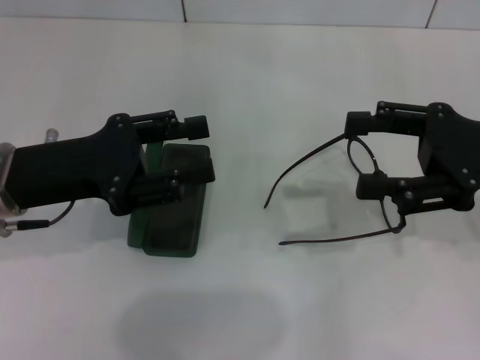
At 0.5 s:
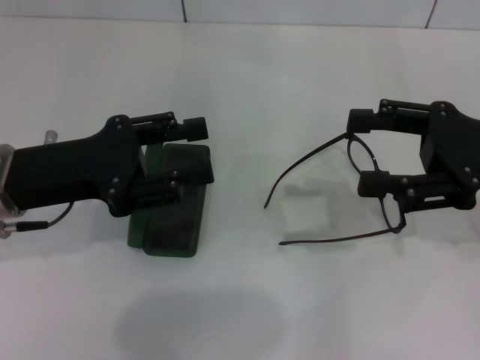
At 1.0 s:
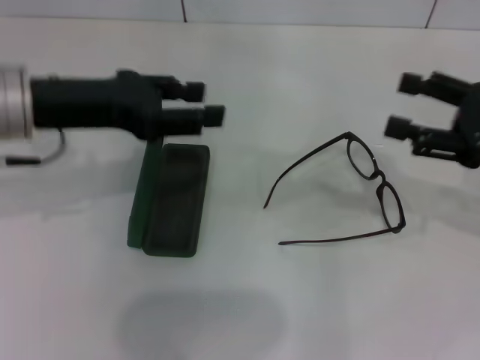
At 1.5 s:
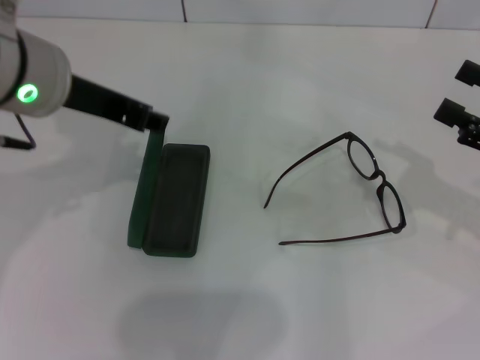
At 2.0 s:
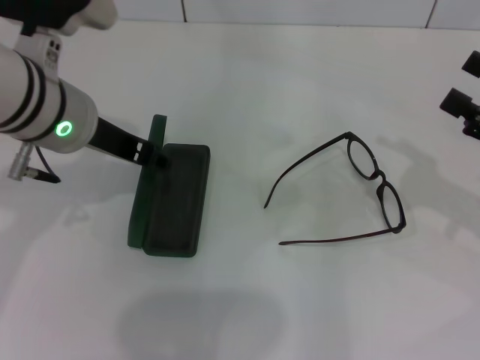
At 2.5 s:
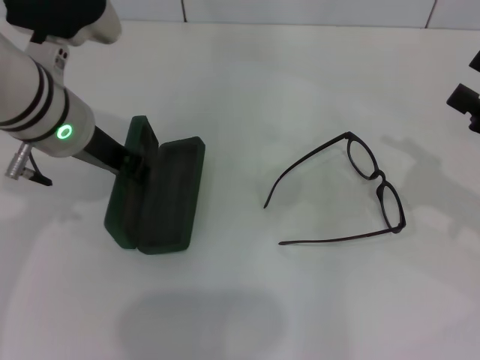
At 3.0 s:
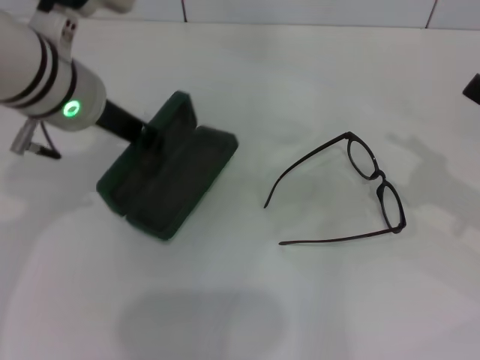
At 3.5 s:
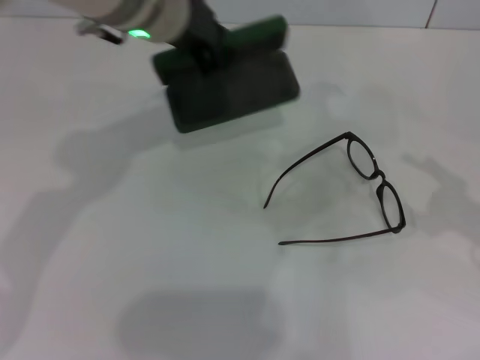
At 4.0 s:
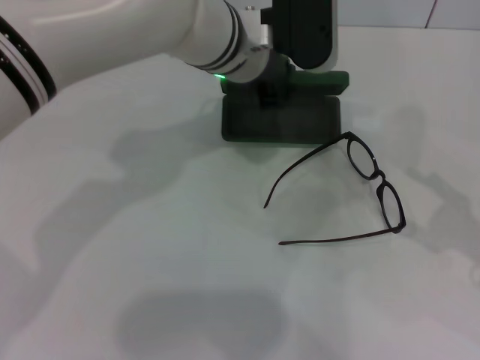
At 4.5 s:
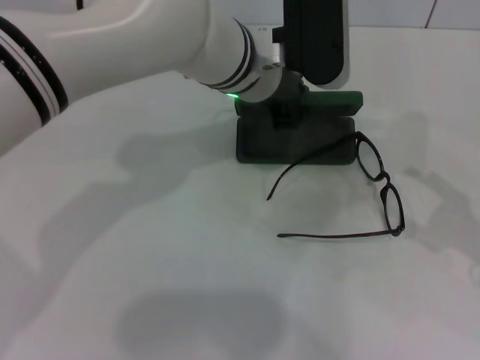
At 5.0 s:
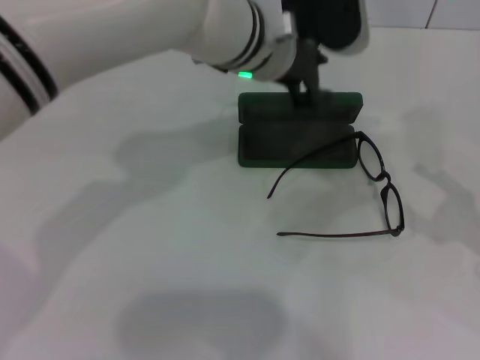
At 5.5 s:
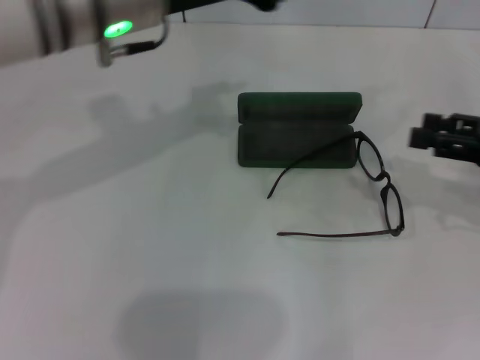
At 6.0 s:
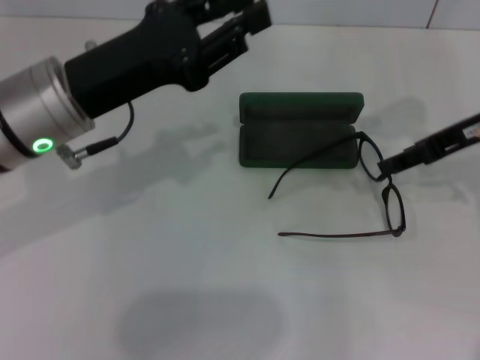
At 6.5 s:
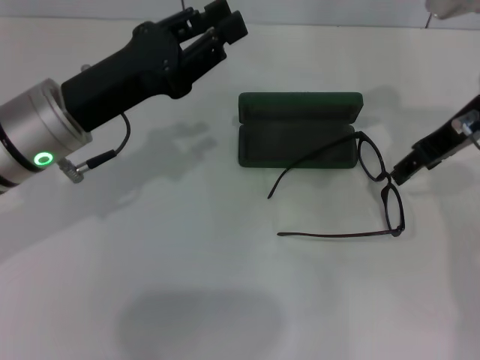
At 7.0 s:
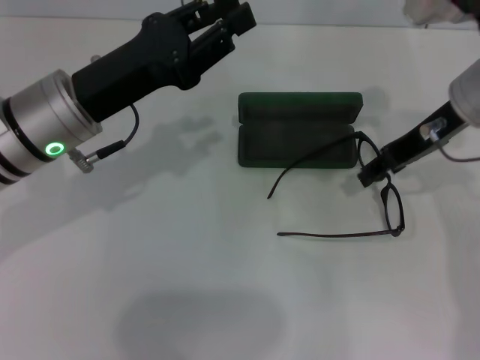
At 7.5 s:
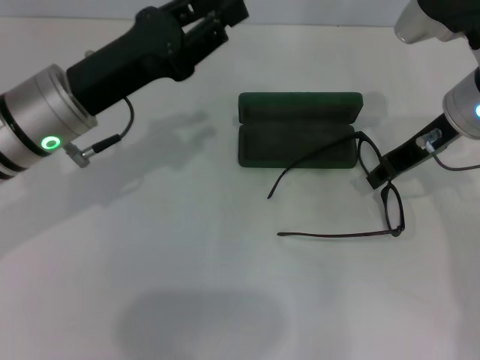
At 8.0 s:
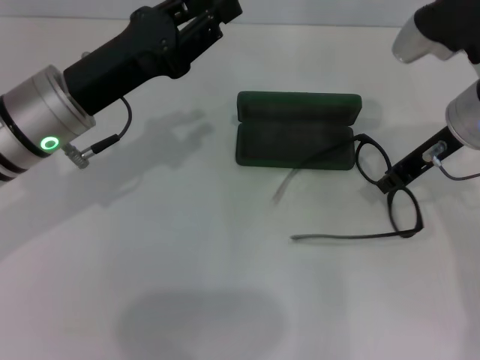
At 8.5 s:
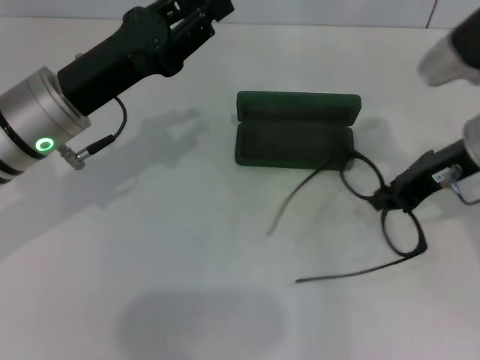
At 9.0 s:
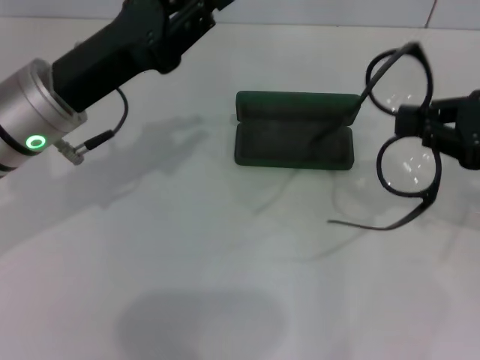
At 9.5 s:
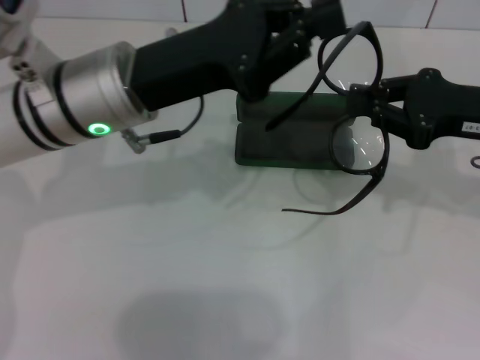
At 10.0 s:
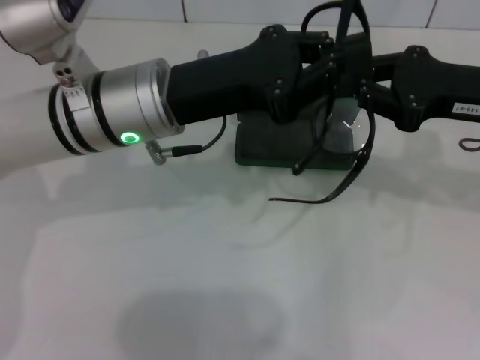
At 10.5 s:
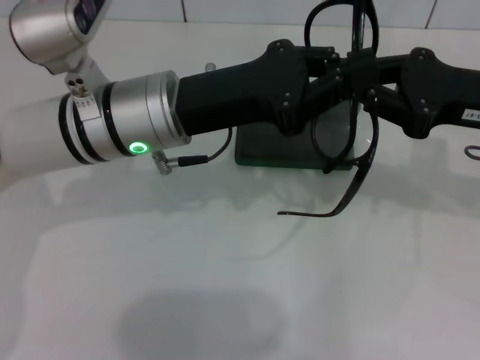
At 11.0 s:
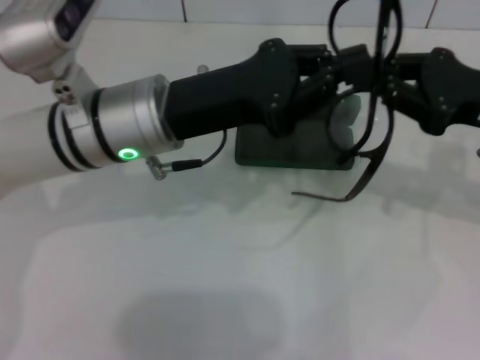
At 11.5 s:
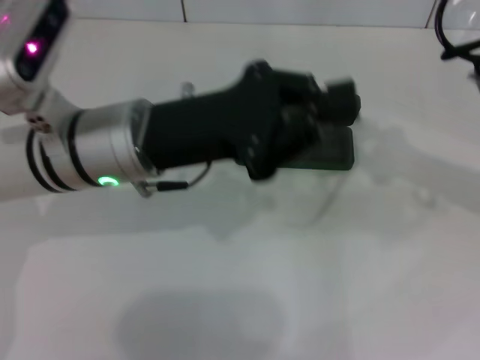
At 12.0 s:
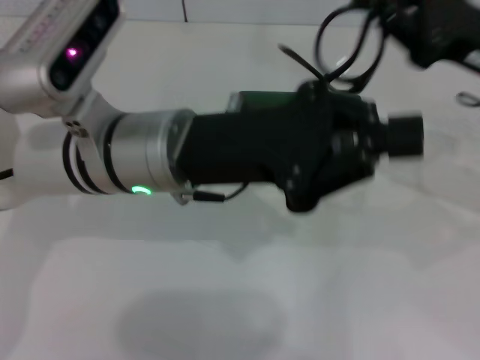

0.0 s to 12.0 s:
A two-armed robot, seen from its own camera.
Step, 0.0 to 2.5 s: Grab the glasses case with your left hand.
Step, 3.0 to 4.5 s: Place the glasses case in the center of the table with your left hand.
Step, 5.0 to 7.5 s: Grab the eyeglass frame with your right hand.
0.0 to 2.0 s: The left gripper moves to the right, upward and forward, some 10 cm. Meanwhile the right gripper travels to the right by some 5 cm.
2.0 to 4.0 s: The right gripper goes about 5 cm backward. The left gripper shifts roughly 15 cm to the right and forward, and closes.
4.0 to 6.0 s: The left gripper is displaced to the left and backward by some 20 cm. Meanwhile the right gripper is displaced forward, to the left and upward by approximately 20 cm.
6.0 to 8.0 s: The right gripper travels to the left by roughly 5 cm, and closes.
8.0 to 10.0 s: The grippers both shift to the right by roughly 5 cm. The left gripper closes up.

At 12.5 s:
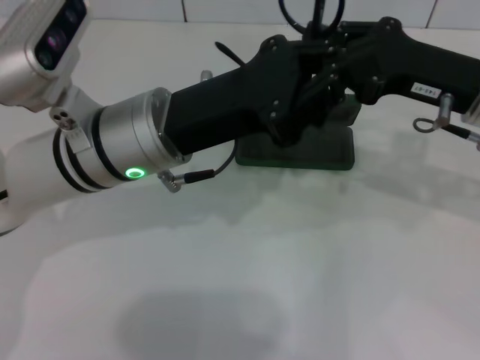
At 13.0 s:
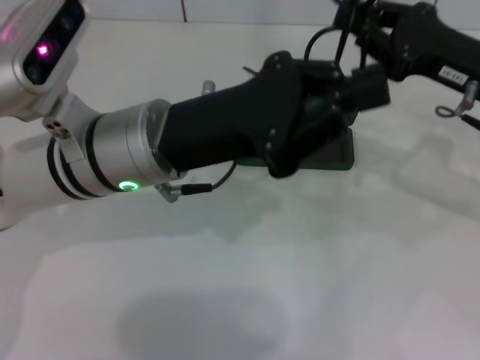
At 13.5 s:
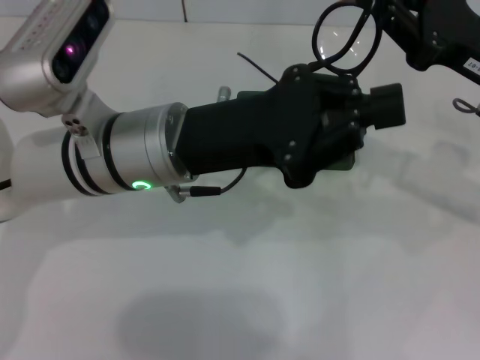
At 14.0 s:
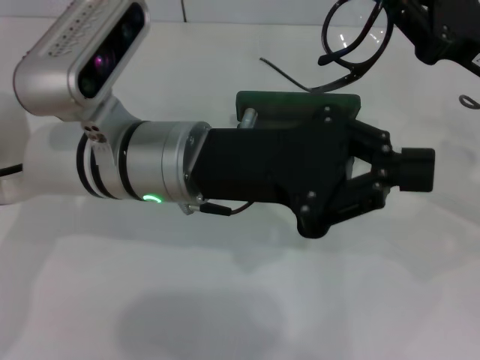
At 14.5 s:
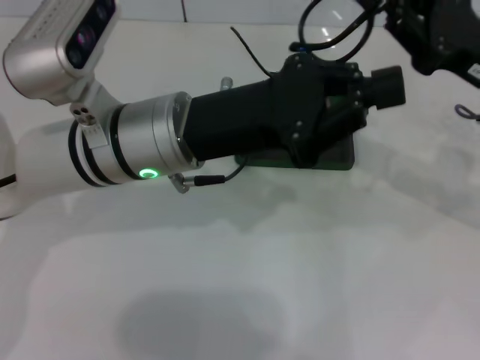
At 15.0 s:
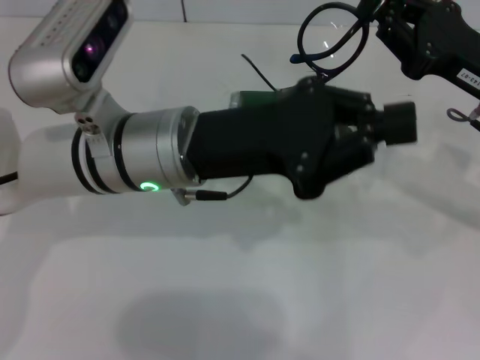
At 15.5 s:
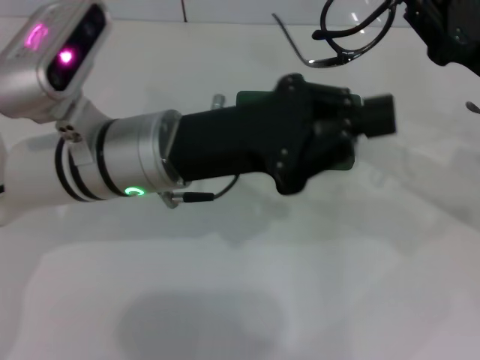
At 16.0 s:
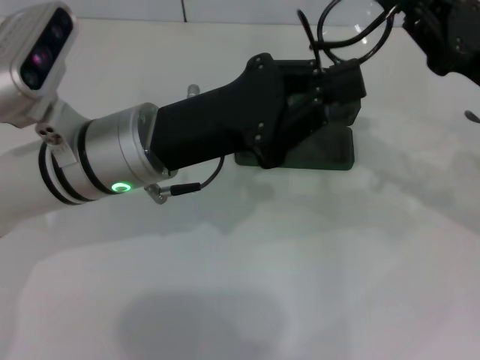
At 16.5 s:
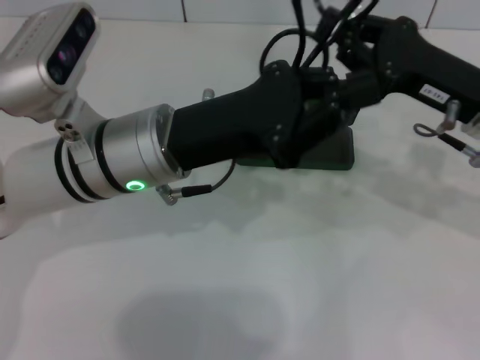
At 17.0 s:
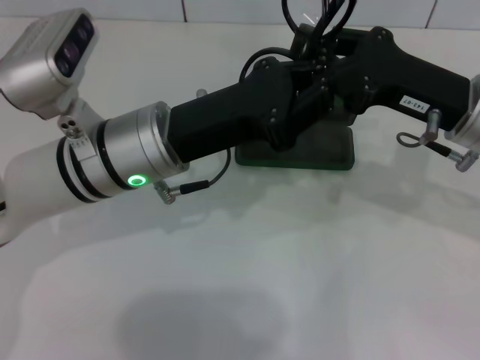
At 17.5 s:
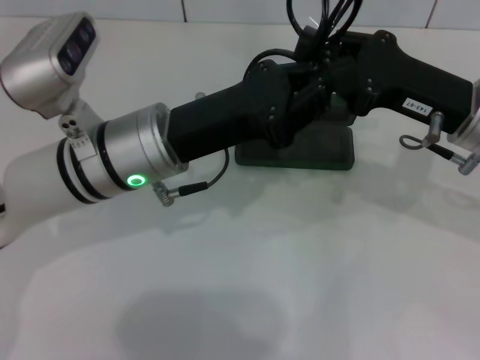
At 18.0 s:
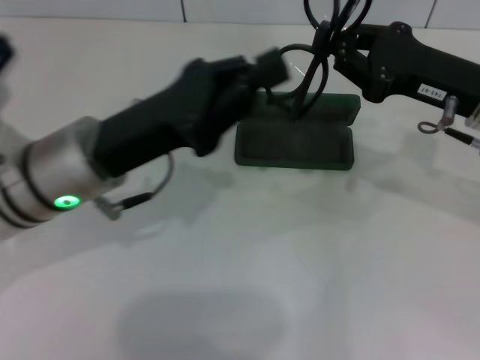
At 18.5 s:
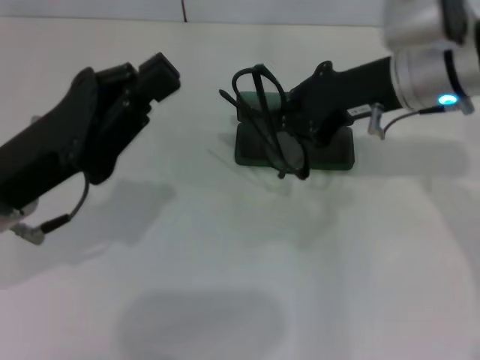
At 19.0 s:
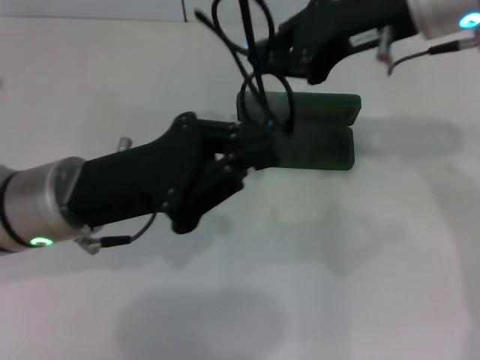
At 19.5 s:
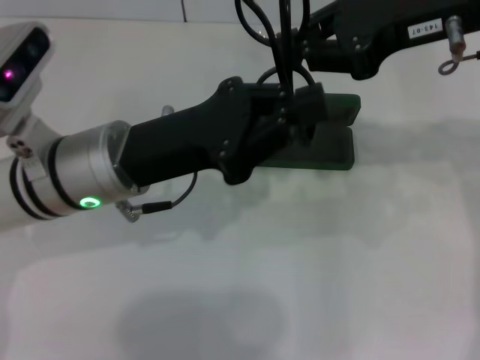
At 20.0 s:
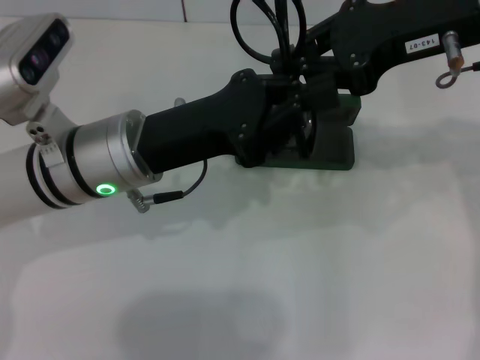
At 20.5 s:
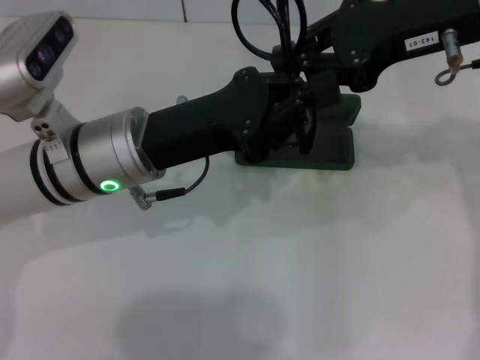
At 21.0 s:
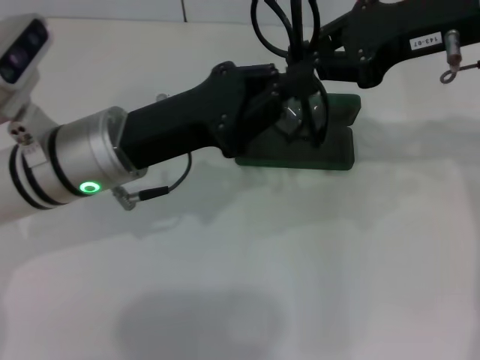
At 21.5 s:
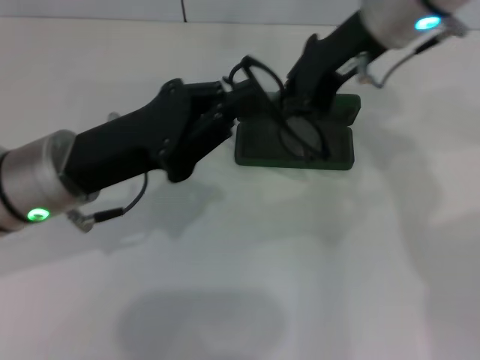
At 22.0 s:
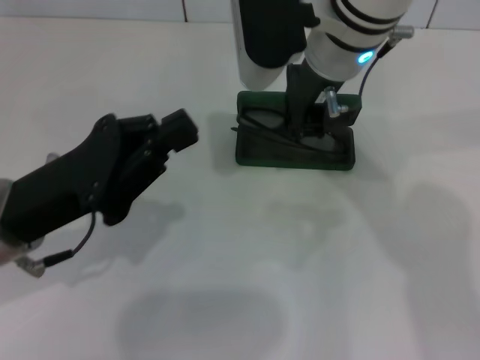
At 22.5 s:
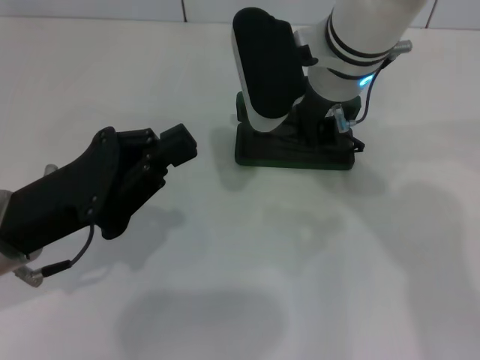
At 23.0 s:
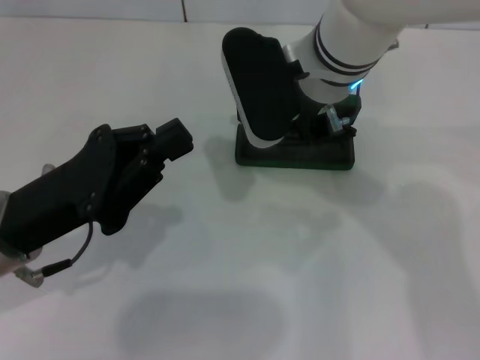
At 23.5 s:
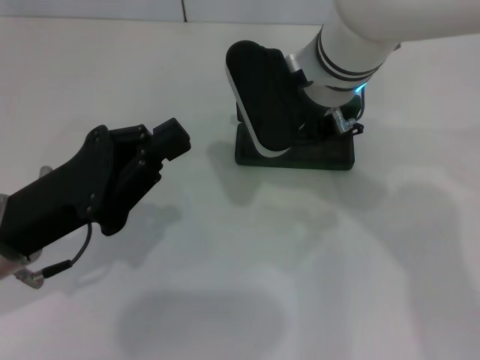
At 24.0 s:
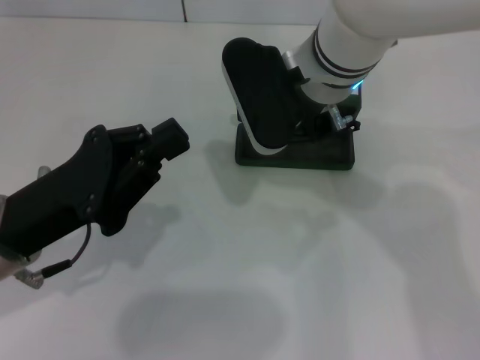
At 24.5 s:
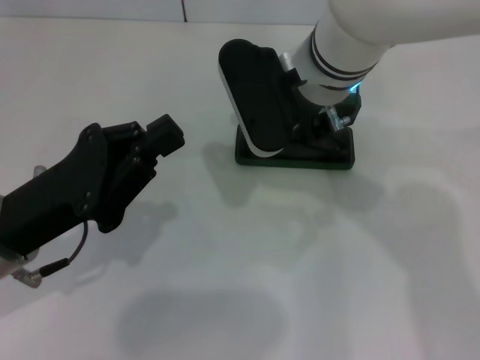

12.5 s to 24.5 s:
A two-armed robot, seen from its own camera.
Step, 12.5 to 21.0 s: Fold the frame with your left hand.
Step, 21.5 to 24.5 s: Put the glasses into the case with your right hand.
16.5 to 18.5 s: The left gripper goes about 10 cm to the left and backward. Meanwhile the right gripper is displaced to the left and upward by about 10 cm.
18.5 to 20.5 s: The right gripper moves upward, some 5 cm. Meanwhile the left gripper moves to the right and forward, roughly 10 cm.
20.5 to 22.5 s: The left gripper moves to the left and backward, some 10 cm. Meanwhile the right gripper goes approximately 15 cm to the left and downward.
22.5 to 24.5 s: The grippers make only small movements.

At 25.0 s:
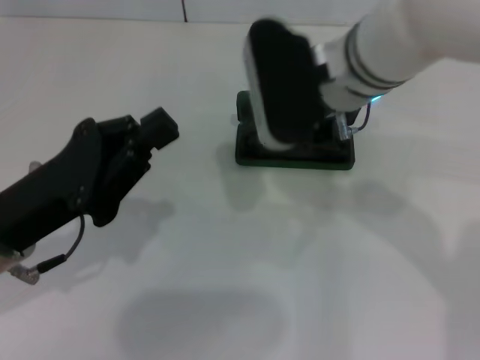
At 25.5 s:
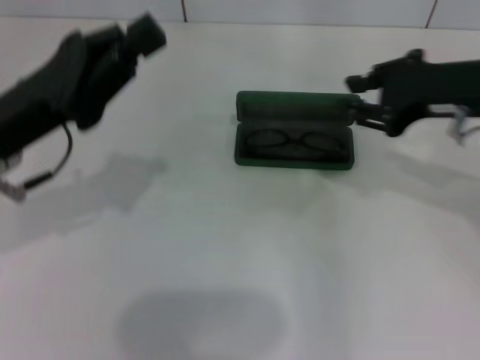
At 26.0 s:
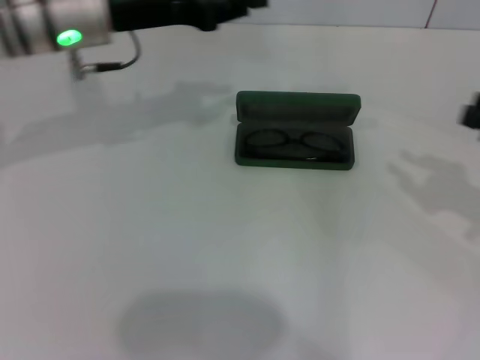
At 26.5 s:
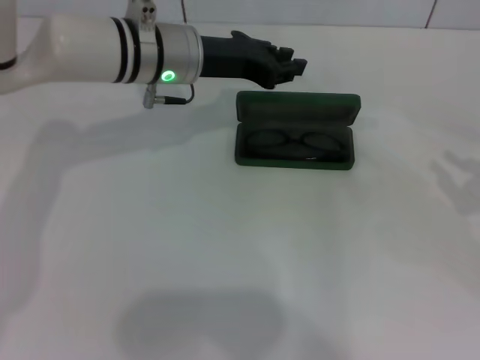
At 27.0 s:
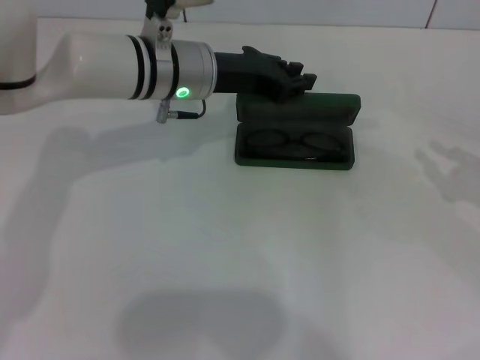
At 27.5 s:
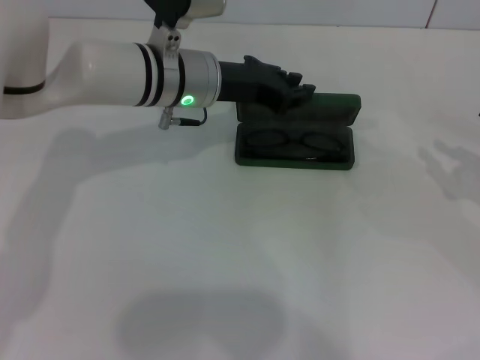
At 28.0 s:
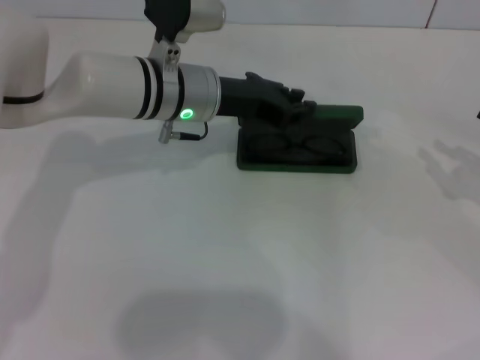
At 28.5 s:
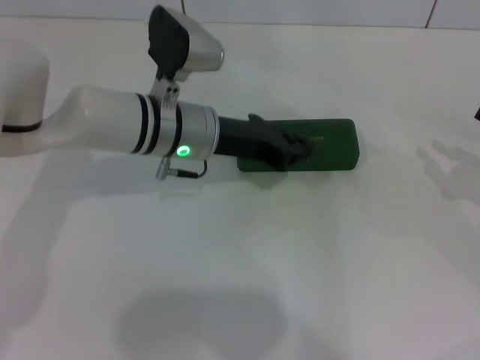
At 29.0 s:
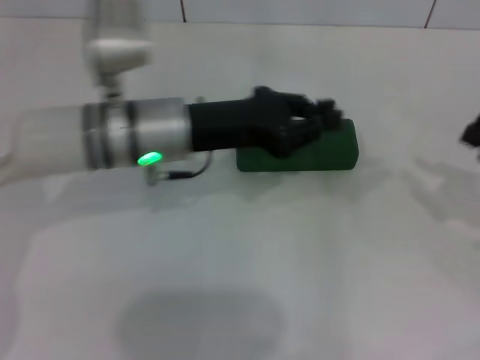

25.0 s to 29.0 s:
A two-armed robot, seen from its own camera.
Step, 25.0 to 28.0 s: Close the glasses case with your left hand.
25.0 to 27.0 s: The right gripper is displaced to the right by approximately 30 cm, while the left gripper is displaced forward and to the right by about 25 cm.
27.0 to 29.0 s: The left gripper heads backward, covering roughly 5 cm.
